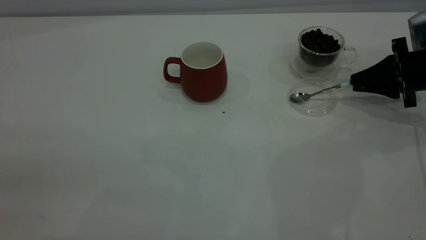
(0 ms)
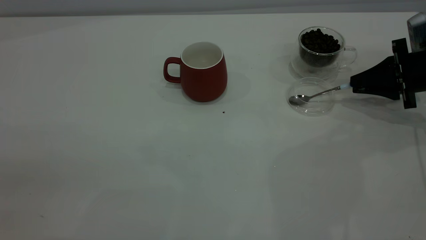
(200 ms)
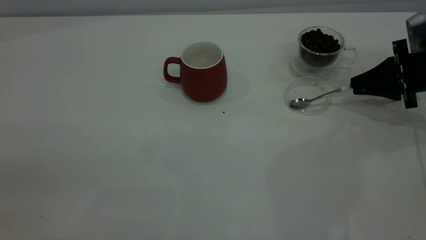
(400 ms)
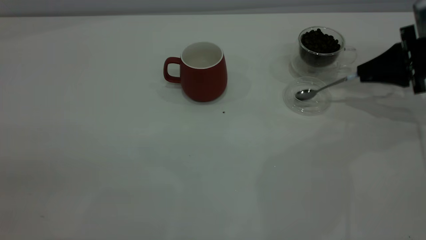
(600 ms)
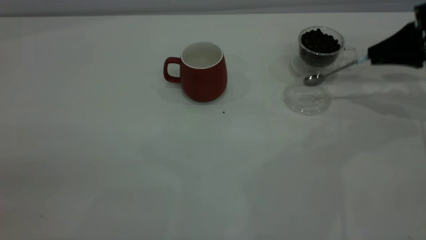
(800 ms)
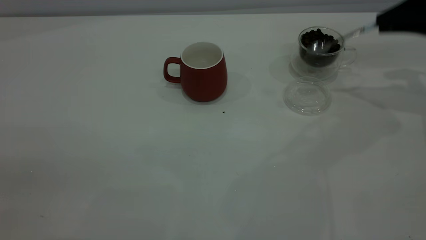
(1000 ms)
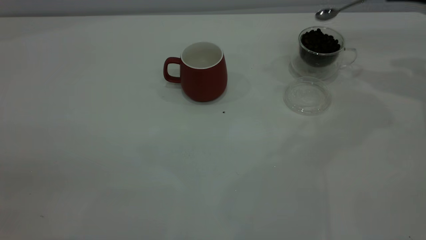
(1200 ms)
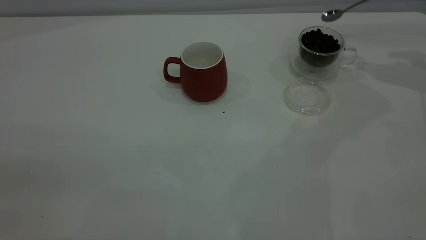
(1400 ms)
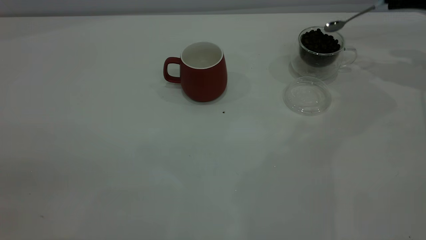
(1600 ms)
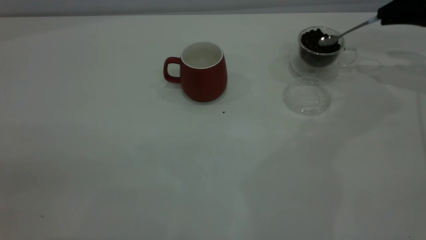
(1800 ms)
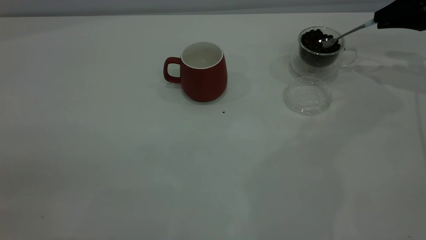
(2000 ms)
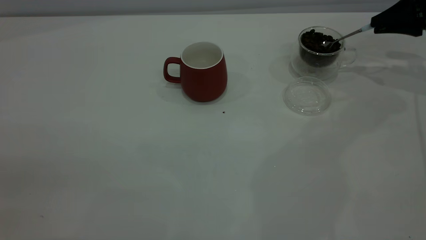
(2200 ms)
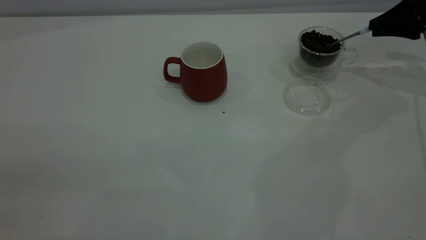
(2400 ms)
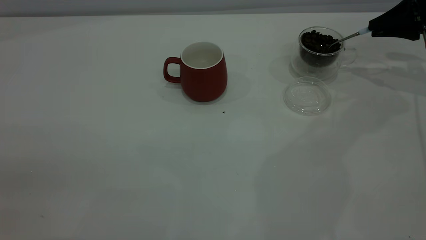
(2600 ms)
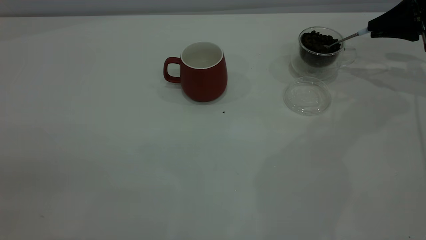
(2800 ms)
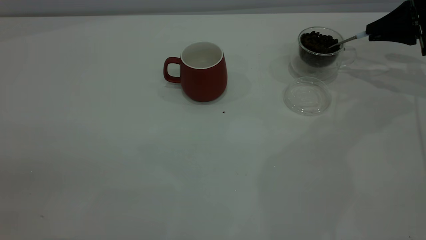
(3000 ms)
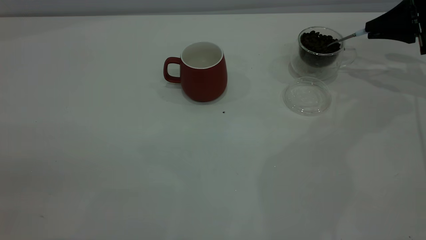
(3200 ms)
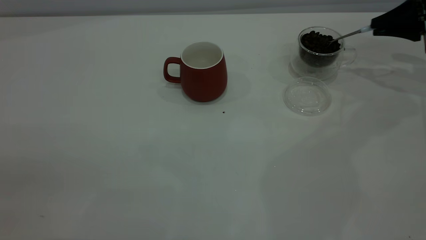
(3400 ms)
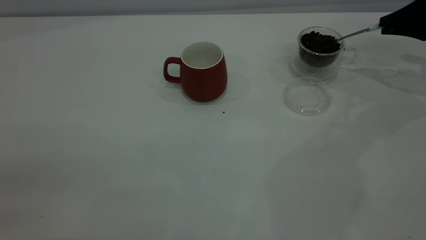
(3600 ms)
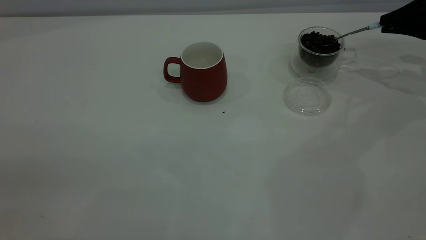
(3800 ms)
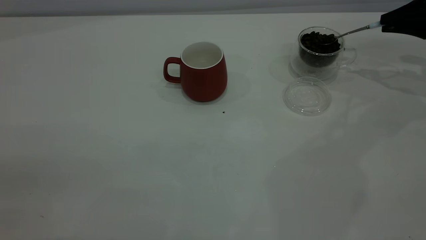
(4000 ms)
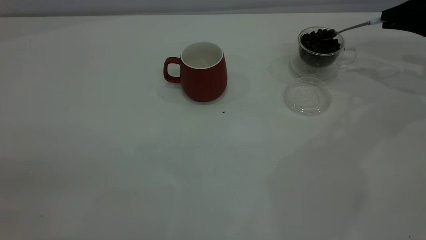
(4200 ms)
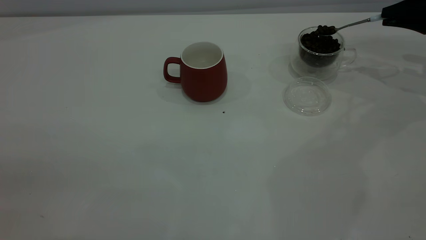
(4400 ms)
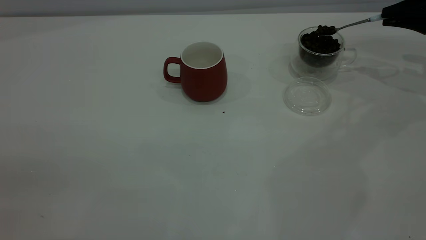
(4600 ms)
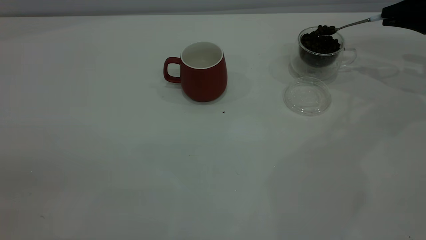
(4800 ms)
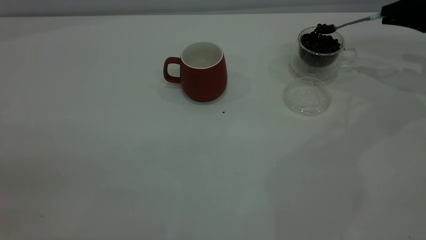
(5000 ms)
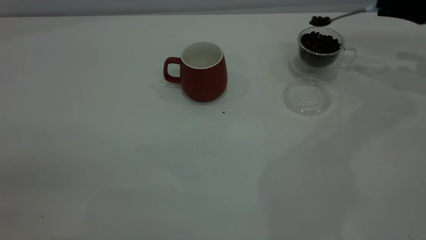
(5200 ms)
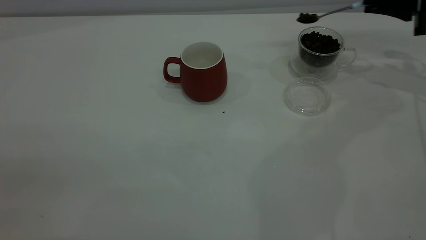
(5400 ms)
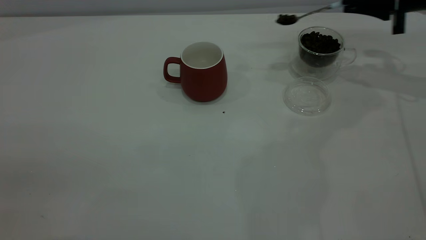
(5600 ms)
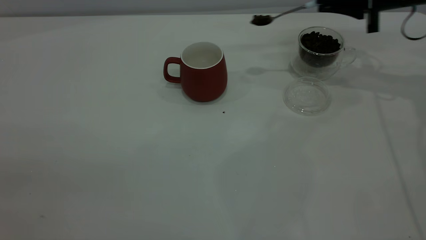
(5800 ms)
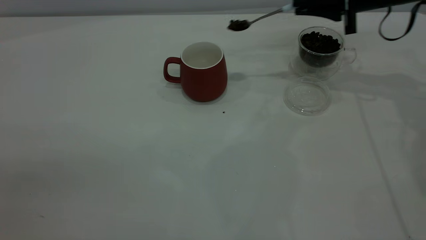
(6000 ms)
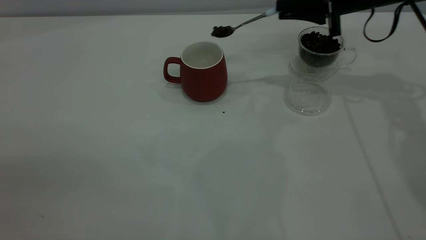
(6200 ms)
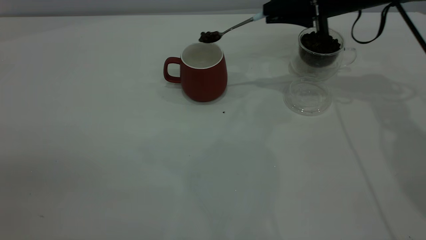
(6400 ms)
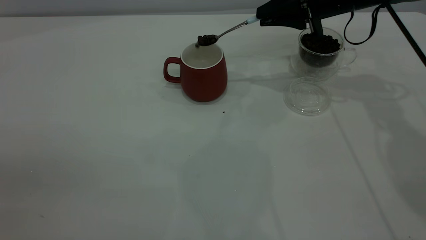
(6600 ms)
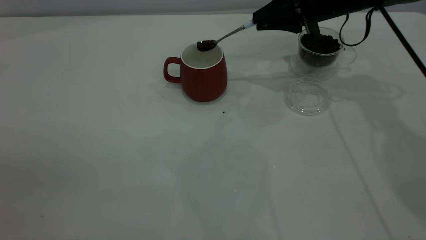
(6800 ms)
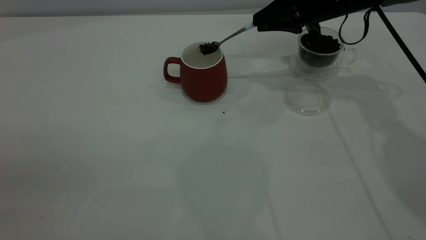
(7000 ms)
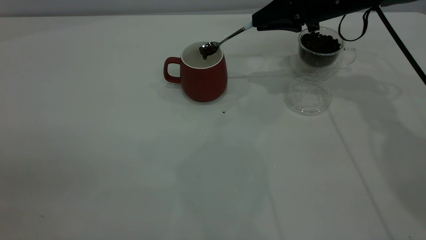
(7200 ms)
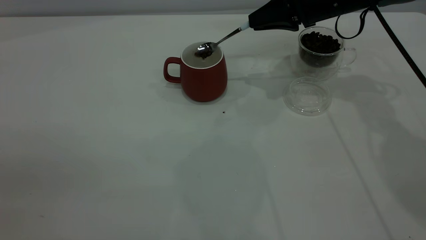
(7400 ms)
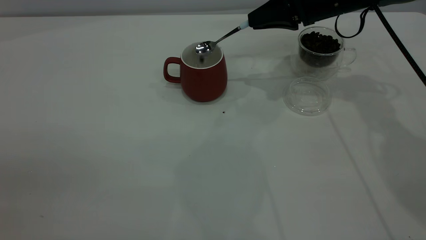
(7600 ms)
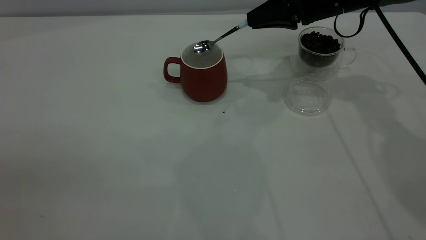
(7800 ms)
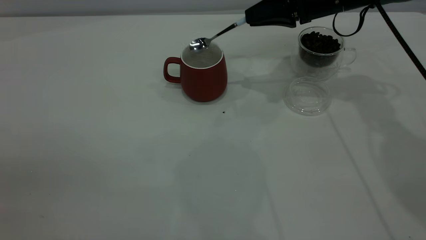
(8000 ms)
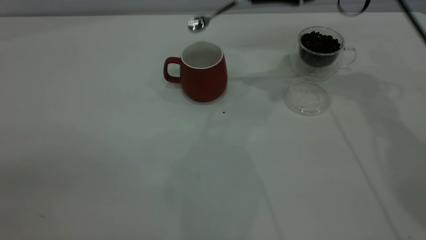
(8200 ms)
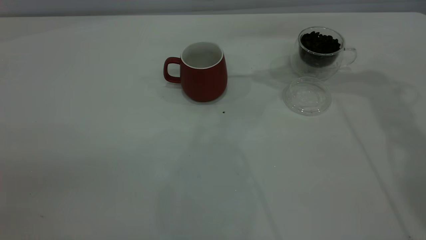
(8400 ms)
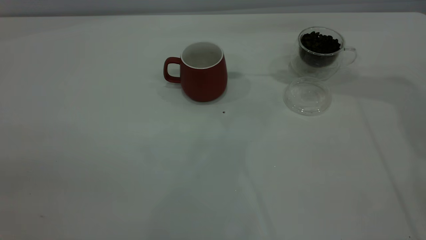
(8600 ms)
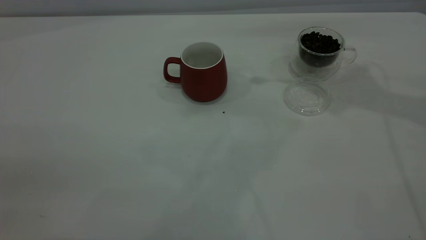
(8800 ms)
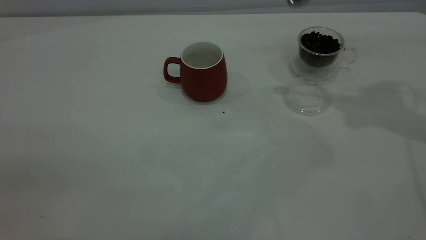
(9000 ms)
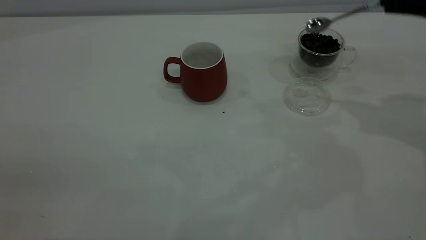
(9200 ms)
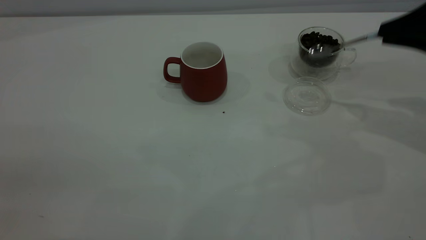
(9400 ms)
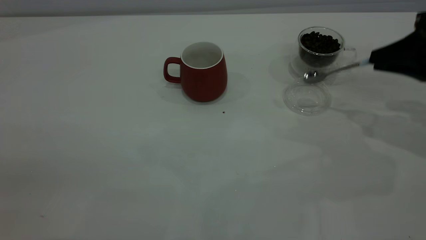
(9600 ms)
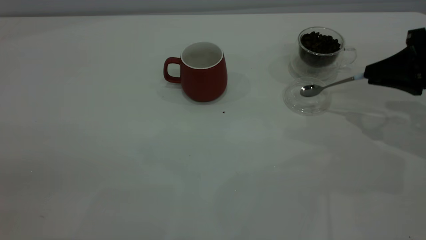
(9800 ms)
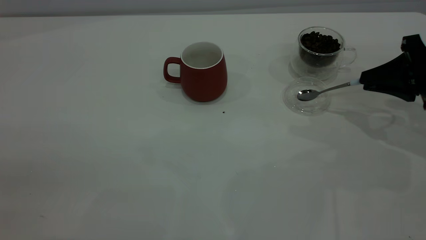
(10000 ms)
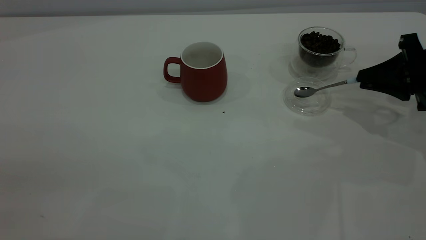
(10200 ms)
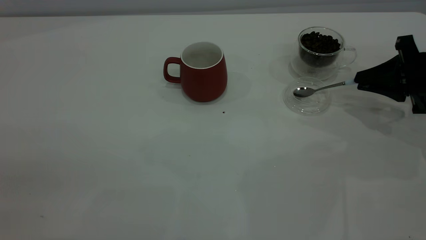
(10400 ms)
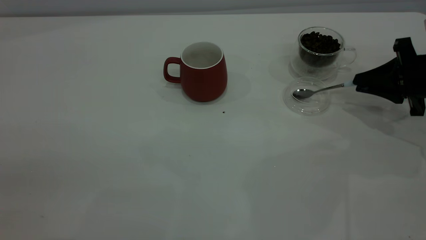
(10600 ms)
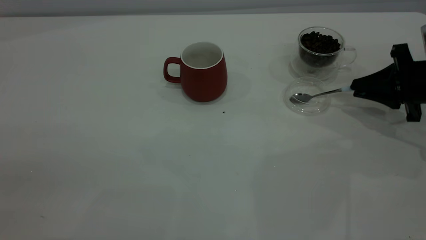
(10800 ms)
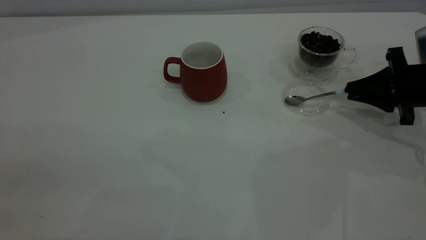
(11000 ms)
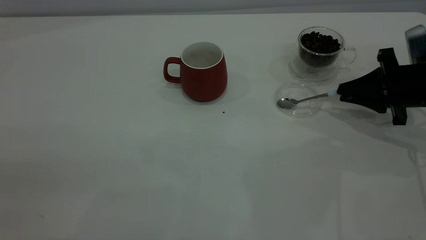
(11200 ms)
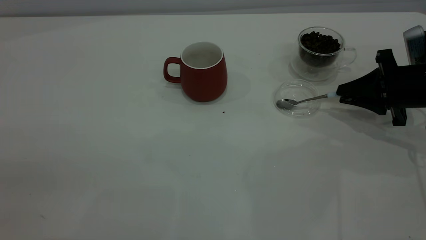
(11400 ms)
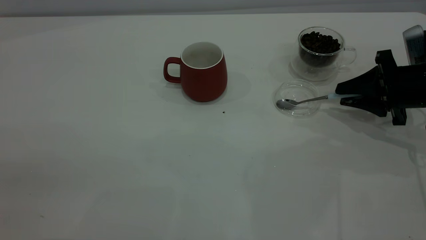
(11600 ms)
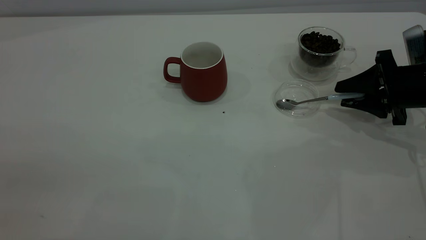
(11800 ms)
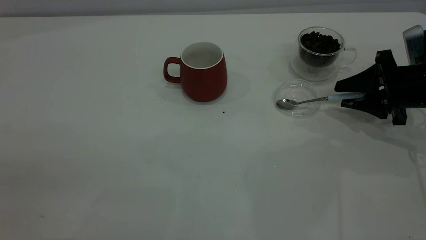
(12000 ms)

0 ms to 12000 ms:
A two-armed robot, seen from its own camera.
Task of the whole recording: the left gripper place the red cup in the center of the table, the right gripper take the blue spoon from the cup lid and scoop out the coffee beans from the coffee cup and put them into the red cup, the right gripper put the spoon back into the cup lid.
Step, 800 ms to 8000 ms: Scoop a spoonful of beans into the cup.
0 ms to 1600 ms: The right gripper shifts roughly 15 cm upward and forward.
1600 ms to 3000 ms: The right gripper moves approximately 5 cm.
3000 ms to 4400 ms: There are only small adjustments of the grippers.
4400 ms to 6000 ms: The right gripper goes some 15 cm to the left.
6000 ms to 7600 ms: The right gripper is displaced to the left by approximately 5 cm.
7600 ms to 9000 ms: The right gripper travels to the right, backward and upward by about 20 cm.
9000 ms to 10400 ms: The right gripper moves downward, roughly 15 cm.
10400 ms to 12000 ms: The right gripper opens its fingers.

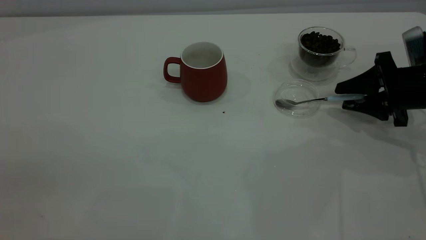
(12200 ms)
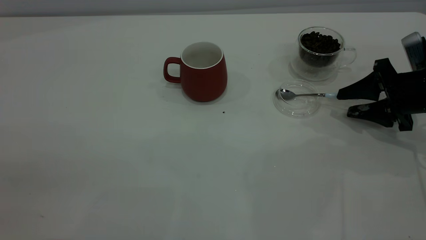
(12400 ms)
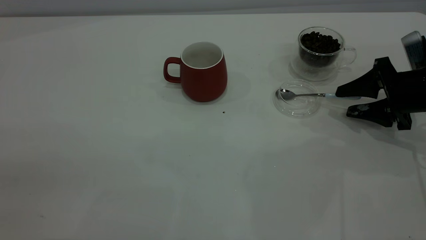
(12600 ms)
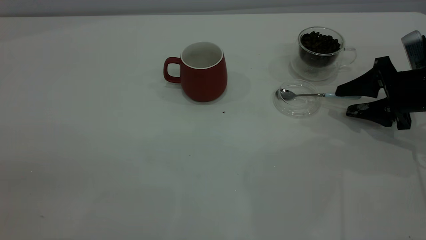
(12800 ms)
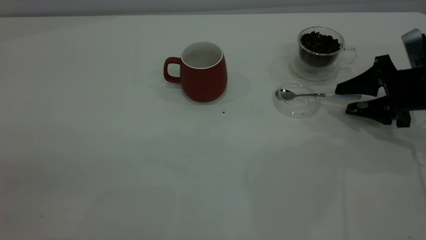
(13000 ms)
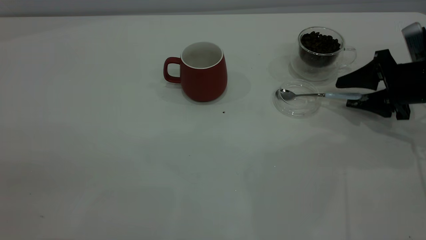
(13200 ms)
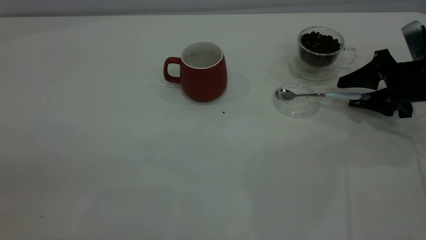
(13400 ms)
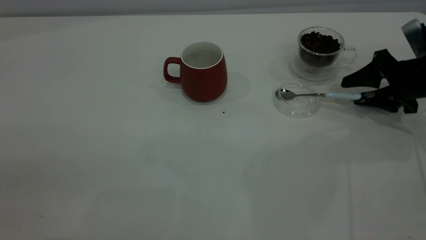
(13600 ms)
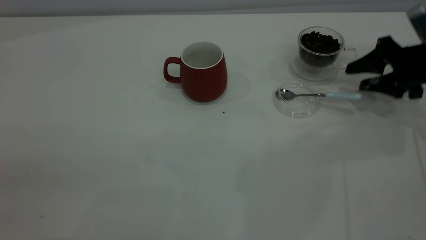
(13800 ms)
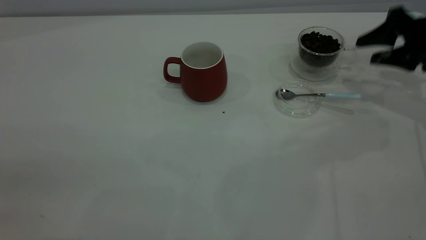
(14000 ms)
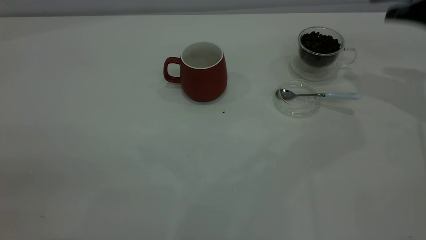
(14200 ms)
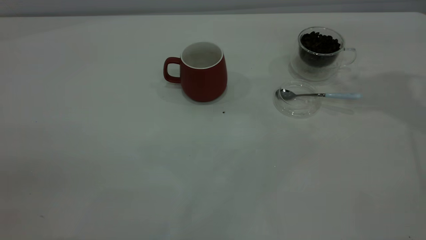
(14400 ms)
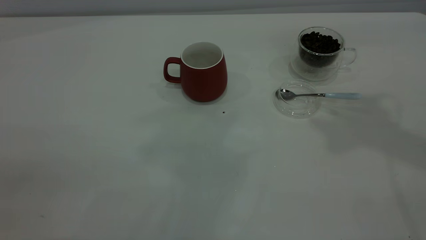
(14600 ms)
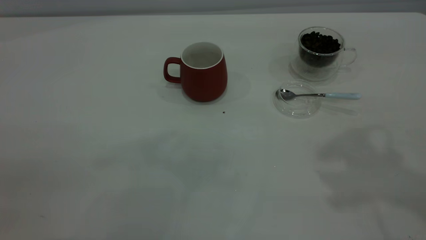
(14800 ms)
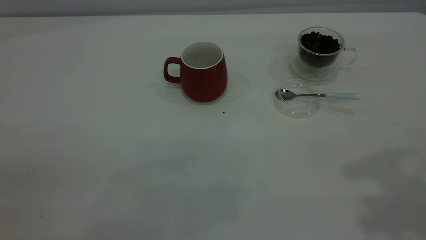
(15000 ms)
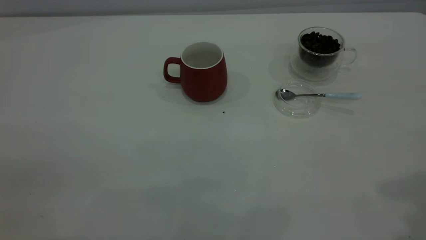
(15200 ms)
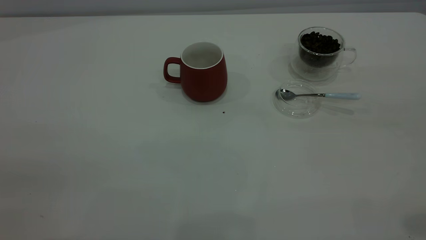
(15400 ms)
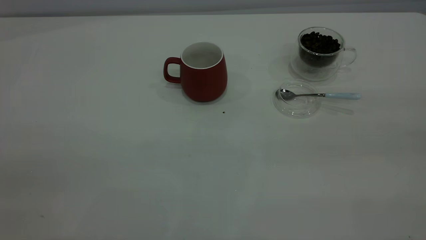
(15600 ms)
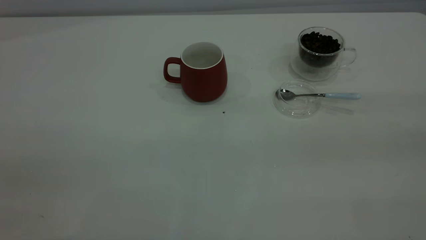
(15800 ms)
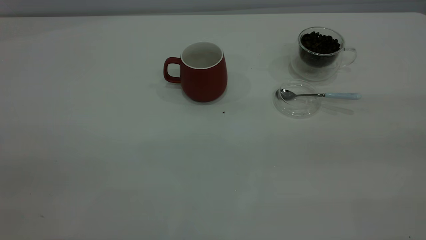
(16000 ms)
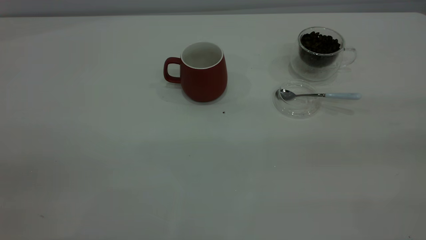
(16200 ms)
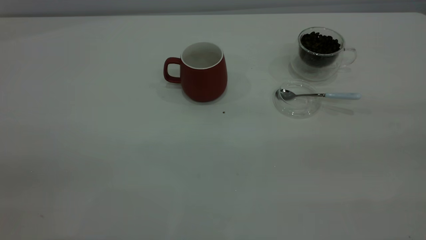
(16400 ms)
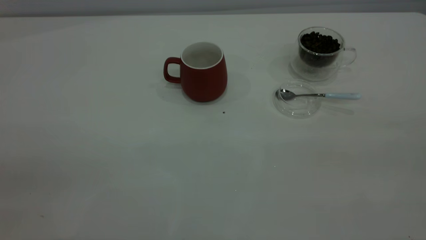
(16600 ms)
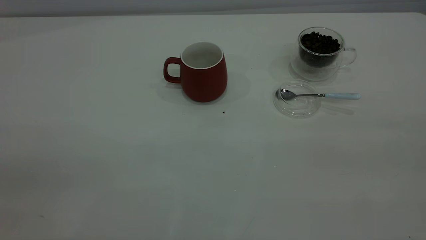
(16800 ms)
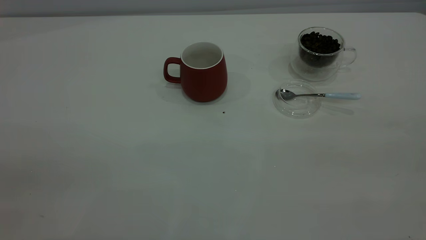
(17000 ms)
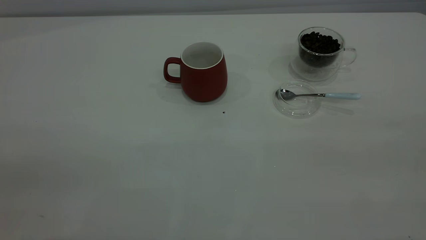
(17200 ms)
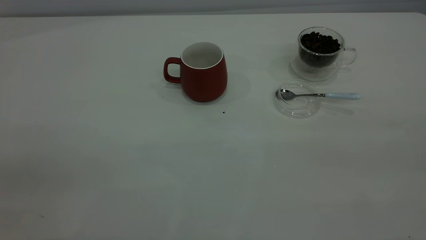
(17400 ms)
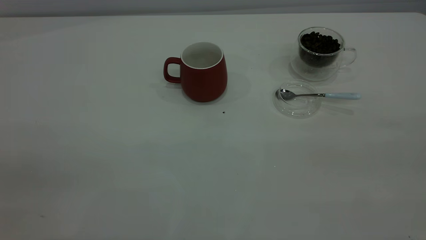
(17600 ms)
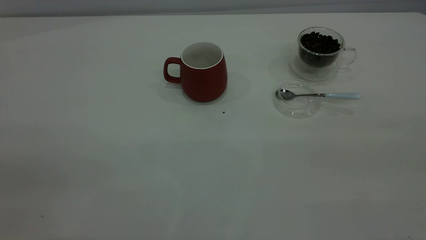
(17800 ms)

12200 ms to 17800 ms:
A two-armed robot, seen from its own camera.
Task of the whole recording: the left gripper place the red cup in the center of the table, the right gripper take the blue spoon from the cup lid and scoop out the coffee beans from the coffee cup and put them into the red cup, the right gripper put the spoon back into the cup lid.
12200 ms to 13600 ms: There are only small adjustments of the grippers.
13600 ms to 15000 ms: The right gripper goes roughly 40 cm upward and backward.
